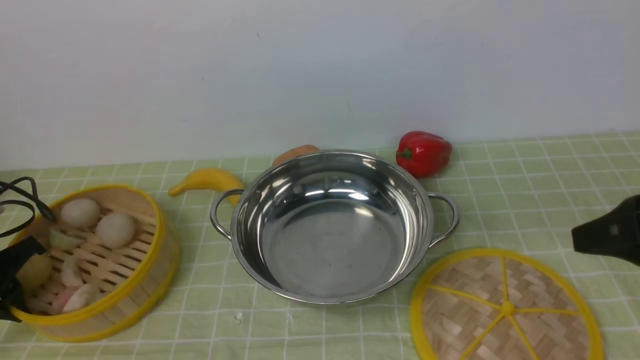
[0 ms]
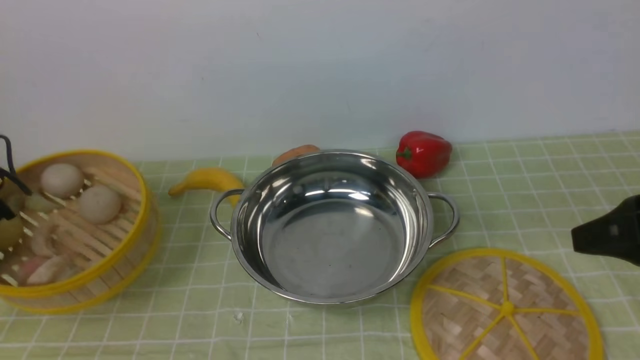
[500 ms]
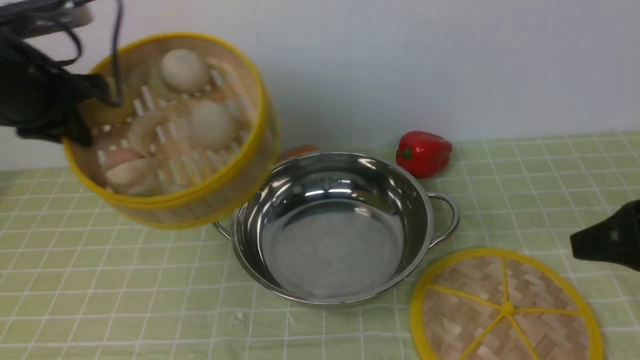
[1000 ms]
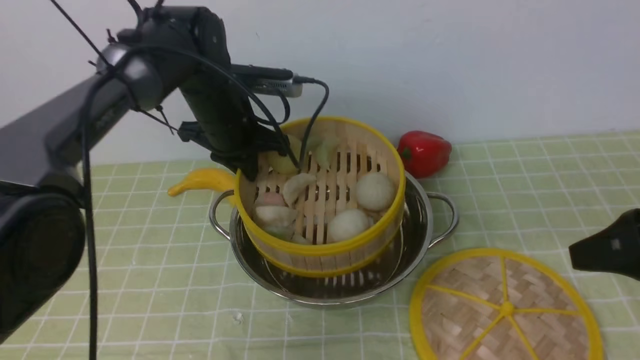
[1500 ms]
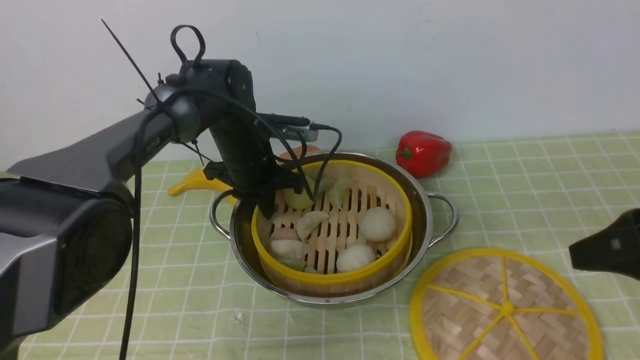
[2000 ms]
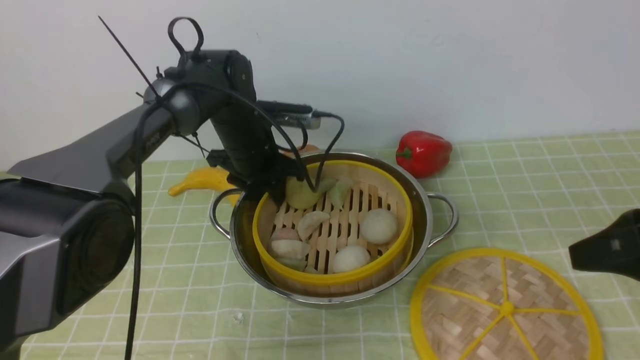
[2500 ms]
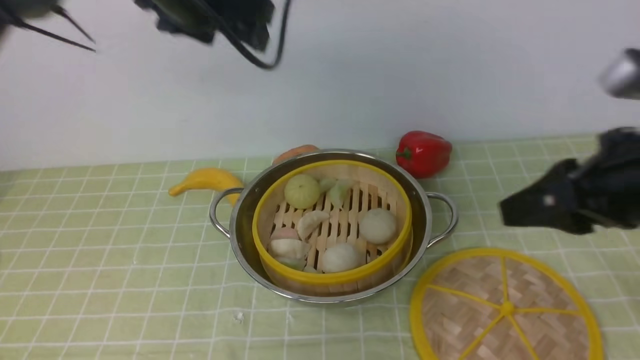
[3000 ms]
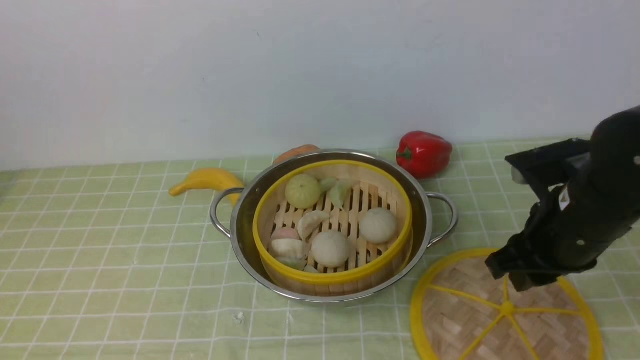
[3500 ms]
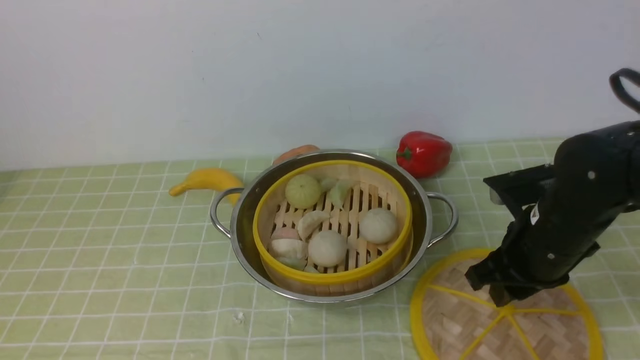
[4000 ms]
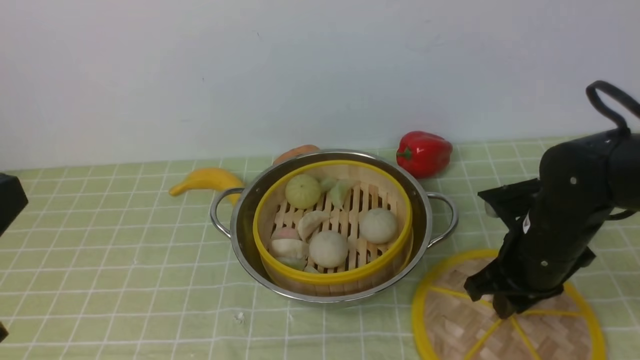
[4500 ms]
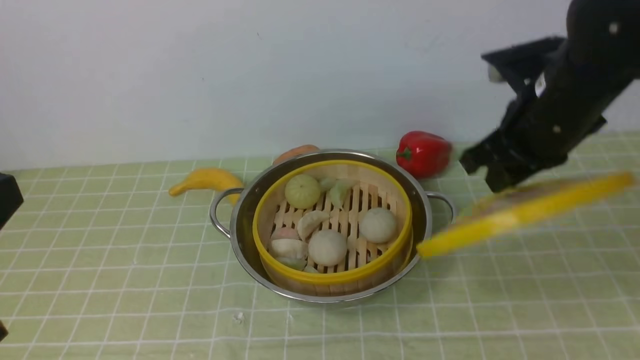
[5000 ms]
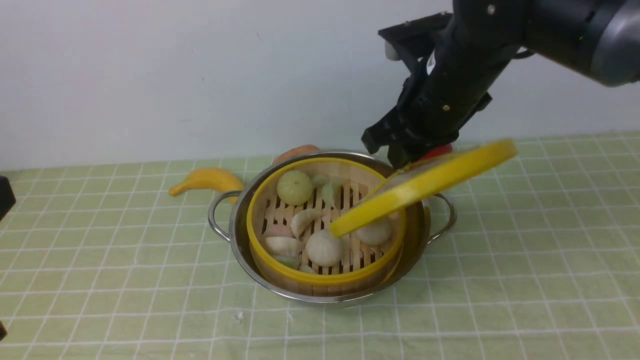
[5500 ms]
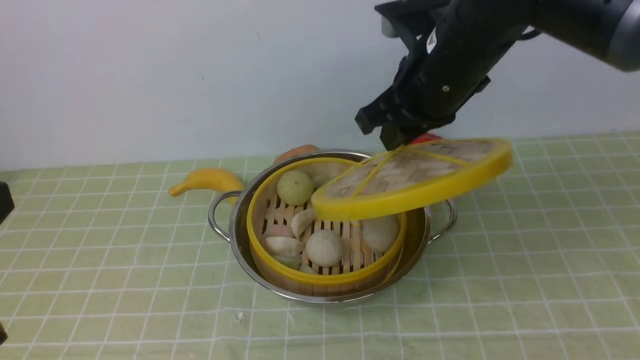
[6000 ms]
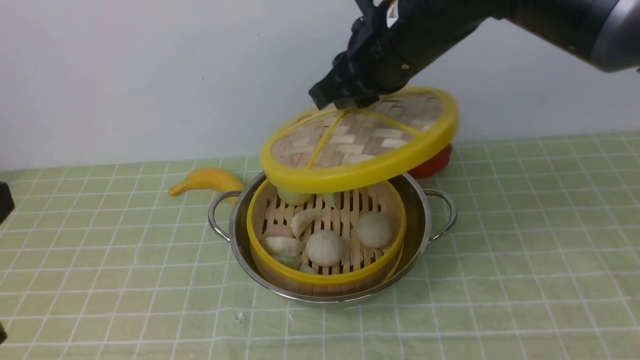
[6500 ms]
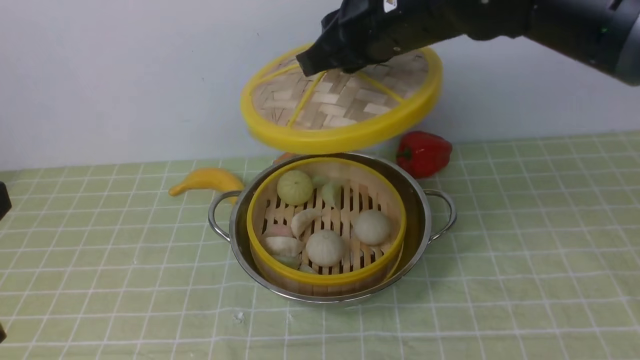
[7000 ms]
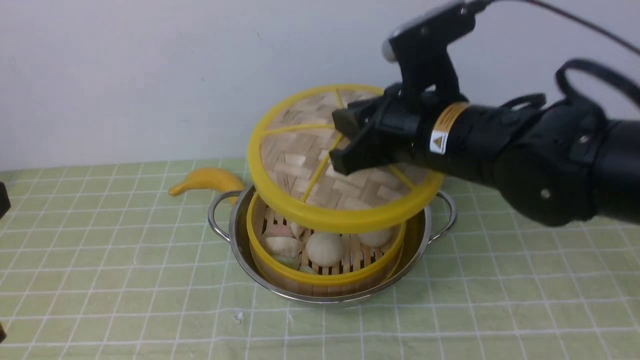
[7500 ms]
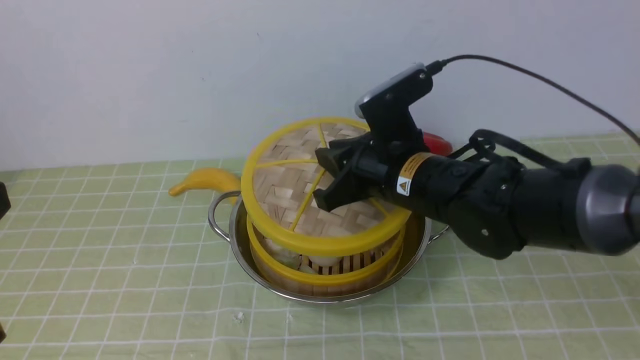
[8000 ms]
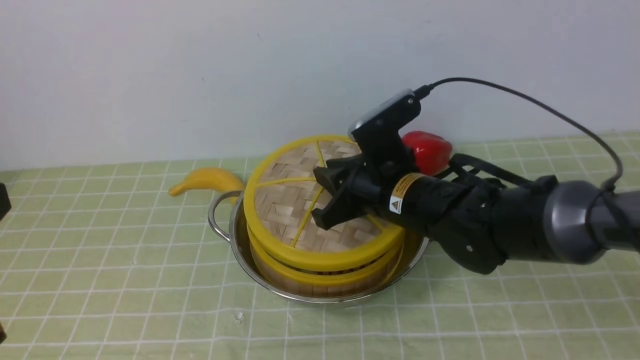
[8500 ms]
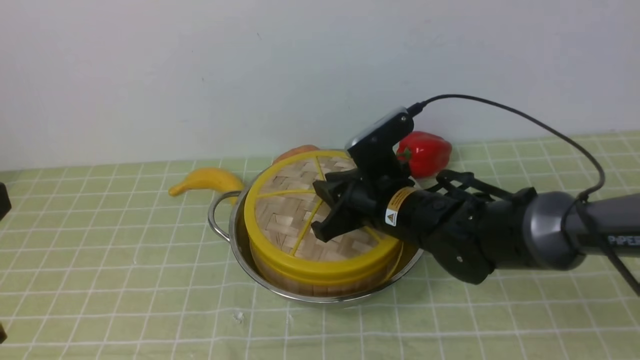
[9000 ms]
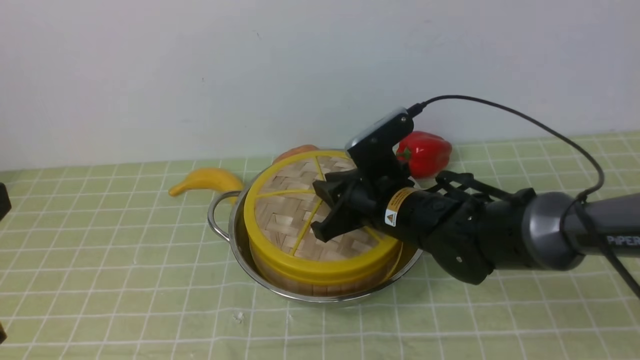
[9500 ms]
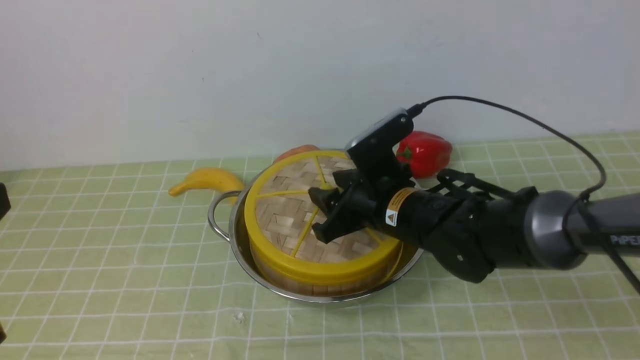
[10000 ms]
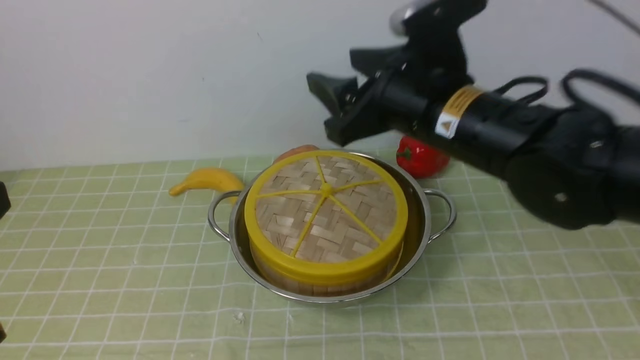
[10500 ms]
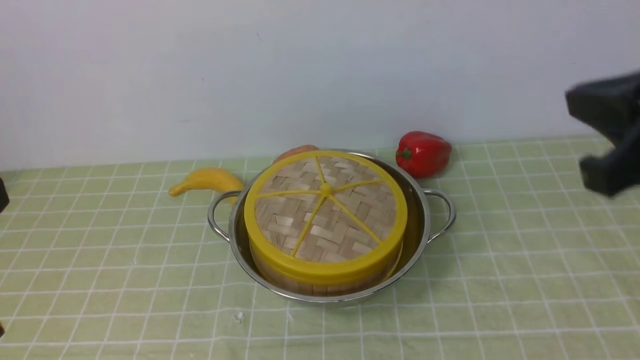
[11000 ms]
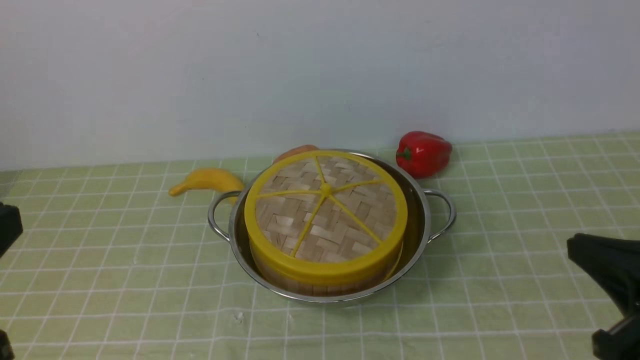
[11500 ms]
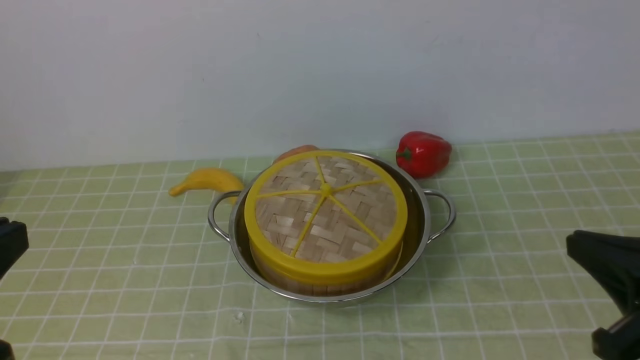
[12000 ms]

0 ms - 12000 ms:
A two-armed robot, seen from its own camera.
Task of the whole recording: place the steamer in the pot on the green tablecloth, and put the lid on the steamer.
Step, 1000 ms - 2500 ms: use the left arm to put the steamer into the iron steamer pot in the middle.
Step, 3000 ms - 4500 ms: use the right arm to lift the lid of the steamer.
Step, 5000 ms - 10000 ms: use the right arm to place the steamer lid on the steamer.
0 ms - 2000 ms: The left gripper travels to the right and forward by some 35 cm.
2000 ms - 4000 ms: The right gripper shifts about 15 cm downward, forward and to the left, while the left gripper heads backward and upward, covering roughly 50 cm, and opens, then closes once more.
4000 ms - 6000 ms: The right gripper travels upward, to the left and forward by some 20 cm.
6000 ms - 8000 ms: The right gripper is displaced downward by approximately 10 cm.
8000 ms - 10000 ms: The right gripper opens up.
10000 ms - 12000 ms: The right gripper heads backward, to the right and upward, covering about 30 cm, and closes its fingers.

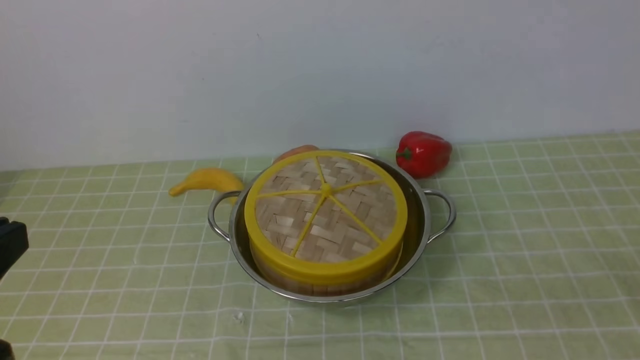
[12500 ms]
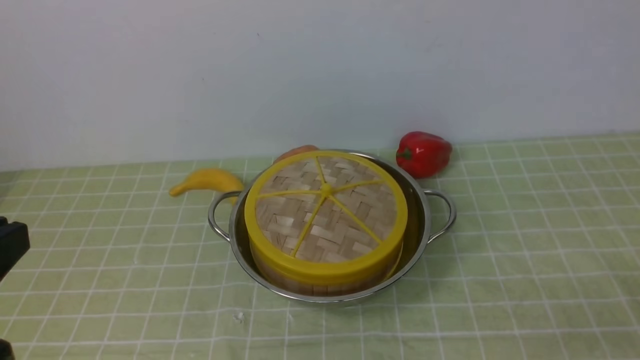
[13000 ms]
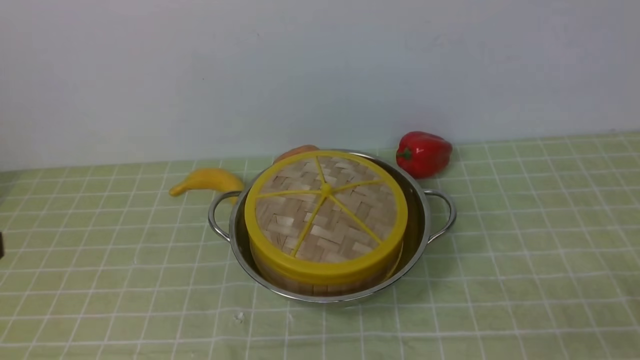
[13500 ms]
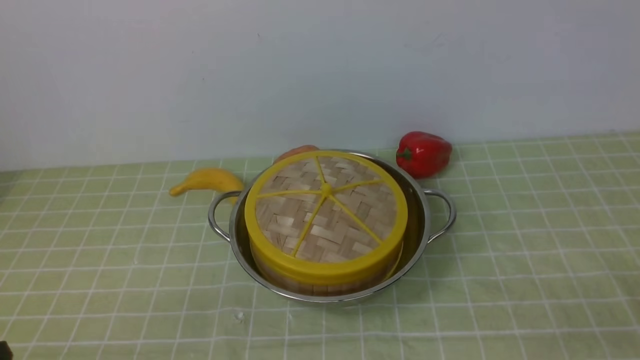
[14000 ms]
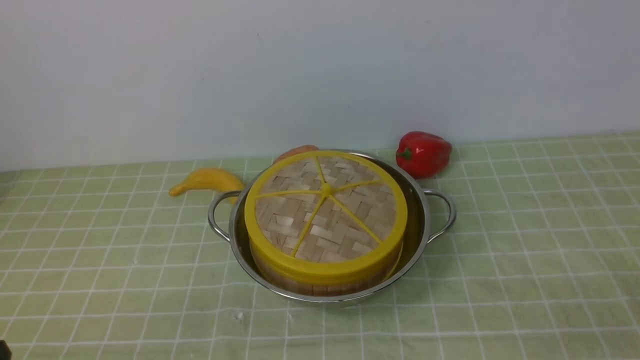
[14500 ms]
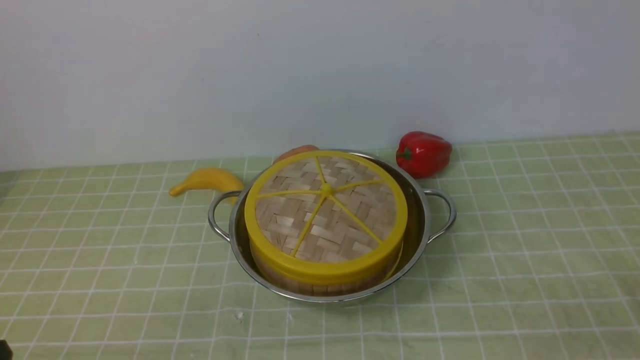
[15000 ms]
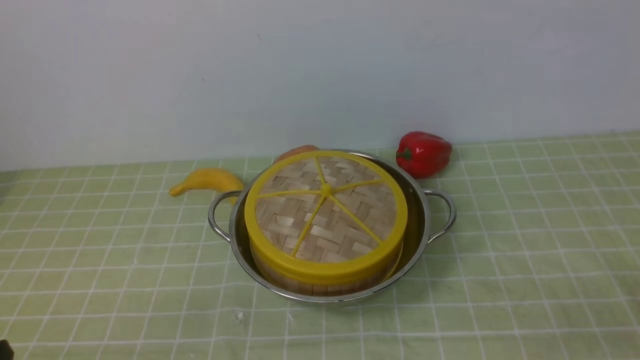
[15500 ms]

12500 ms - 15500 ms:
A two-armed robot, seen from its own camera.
Task of the whole recording: place the steamer in the pot on the green tablecloth, and put the lid on the steamer.
14000 ms - 15500 ms: Both grippers stay about where they are.

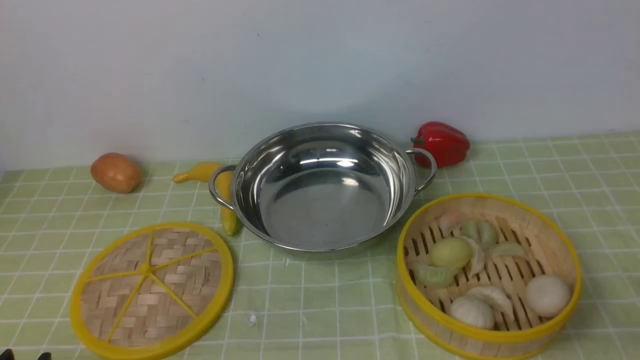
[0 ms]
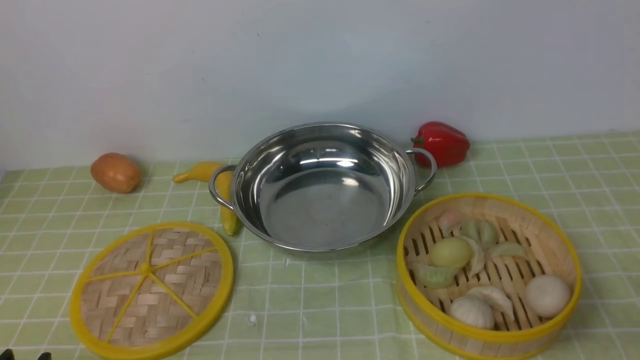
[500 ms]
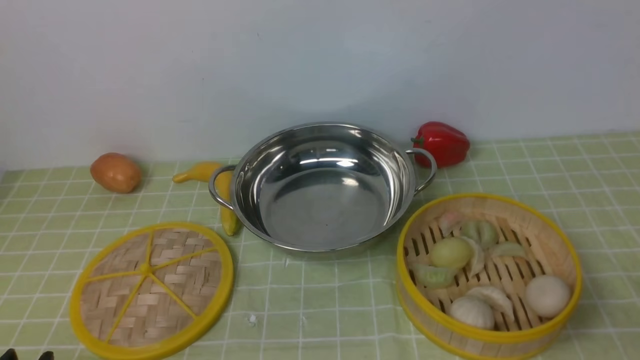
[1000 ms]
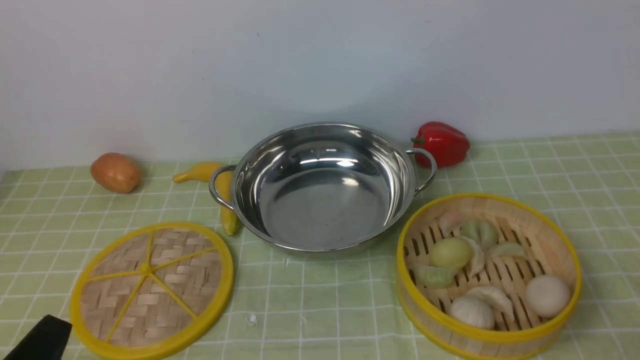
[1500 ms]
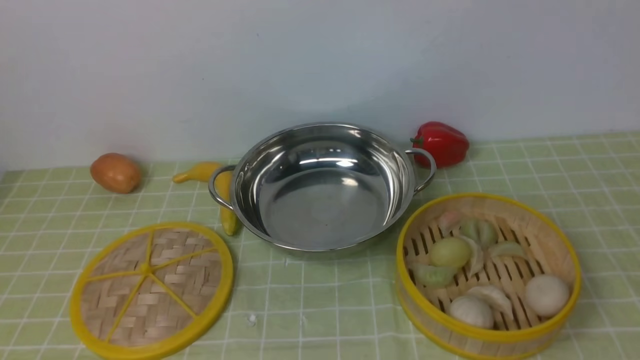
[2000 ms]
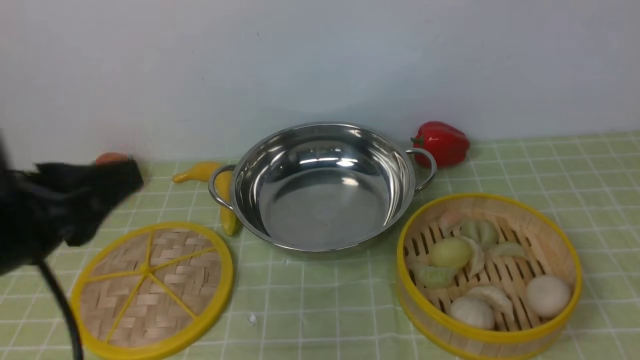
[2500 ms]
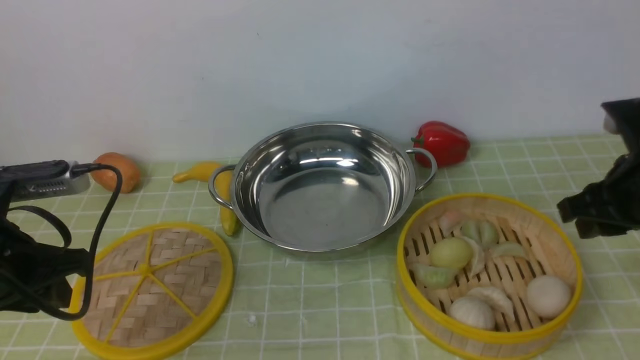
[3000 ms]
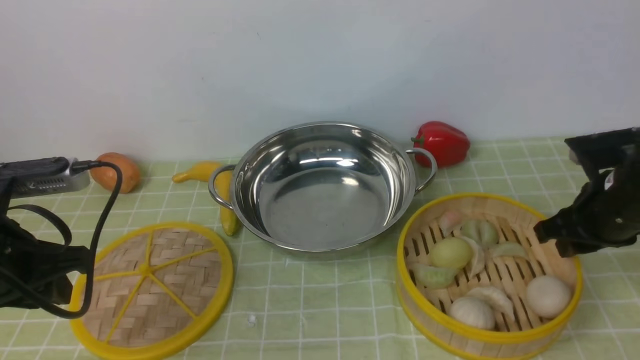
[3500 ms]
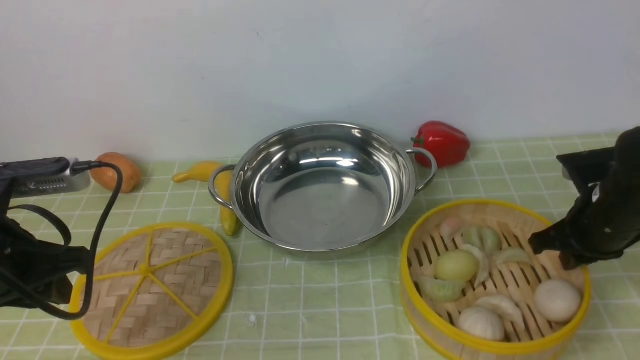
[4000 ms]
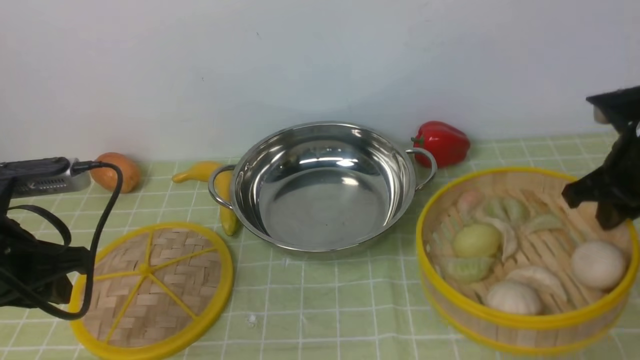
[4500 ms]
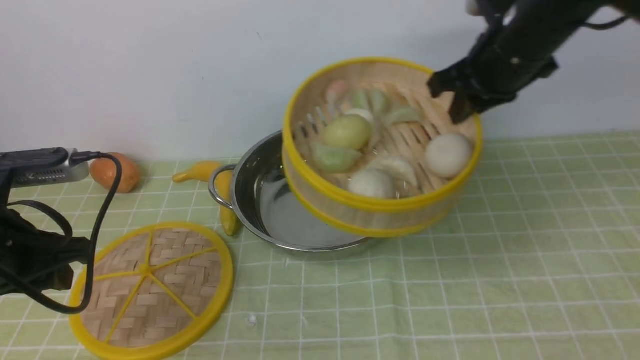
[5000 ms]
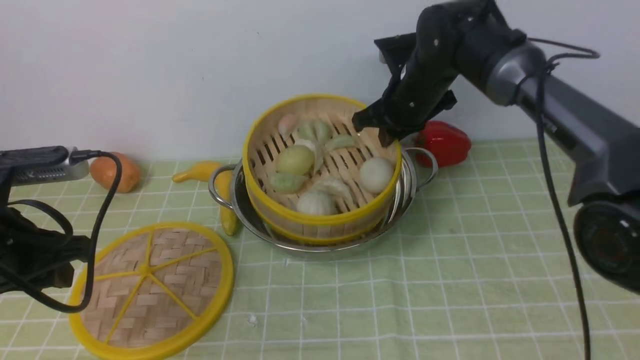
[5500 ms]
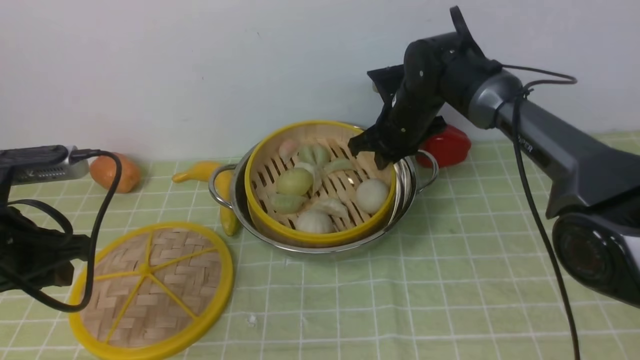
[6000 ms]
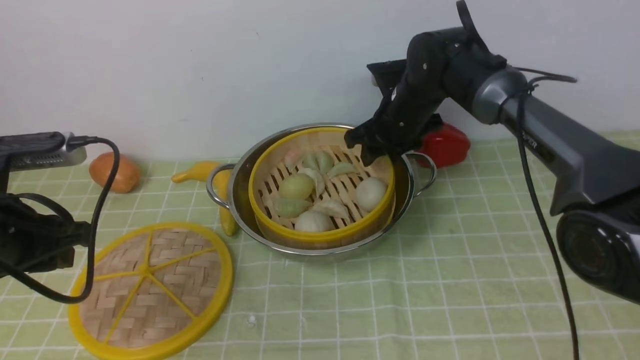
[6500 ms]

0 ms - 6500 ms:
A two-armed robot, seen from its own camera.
Task of the whole recording: place the steamer in the pot on the green tablecloth, and put the lid on the steamer.
Step, 0 ms - 4500 ms: use the right arm to lift the steamer closest to it.
2000 ms - 4500 ms: The left gripper travels forward by roughly 20 cm; the right gripper travels forward by approximately 30 cm, and closes up.
4500 ms - 6500 ms: The right gripper heads to the left and forward, covering some 25 cm, and opens its fingers.
